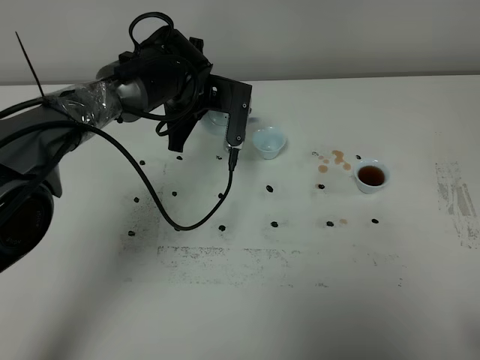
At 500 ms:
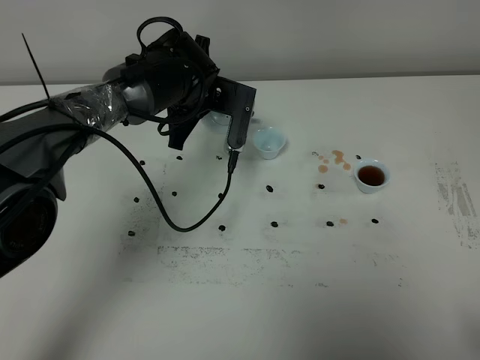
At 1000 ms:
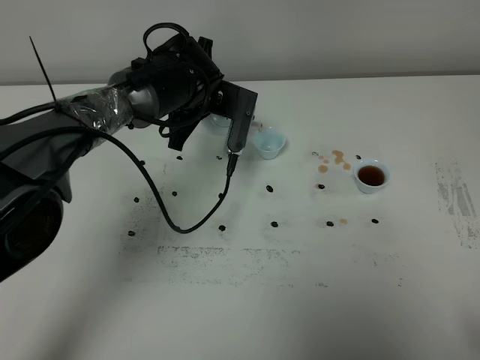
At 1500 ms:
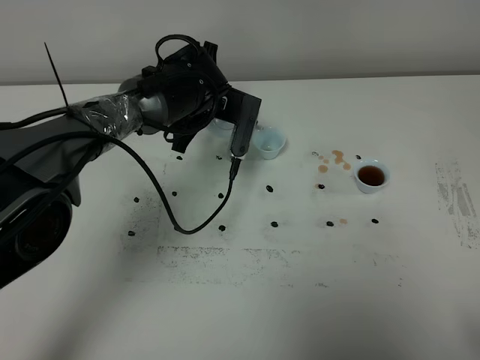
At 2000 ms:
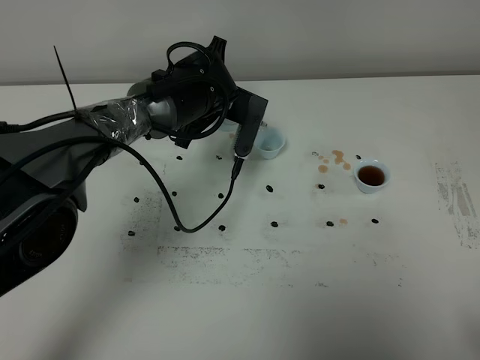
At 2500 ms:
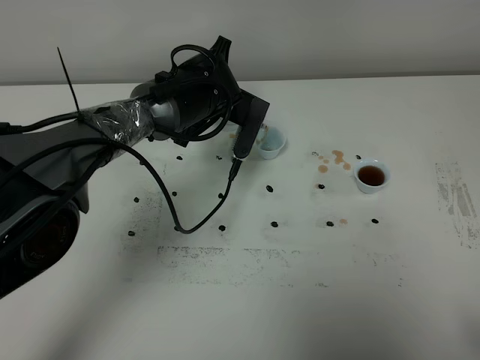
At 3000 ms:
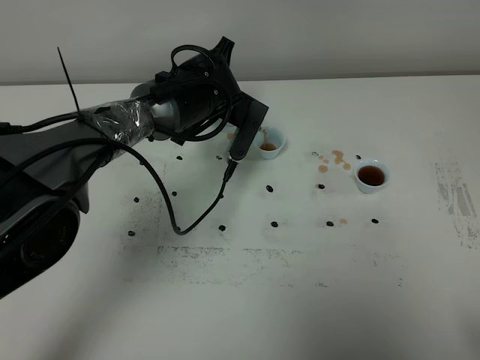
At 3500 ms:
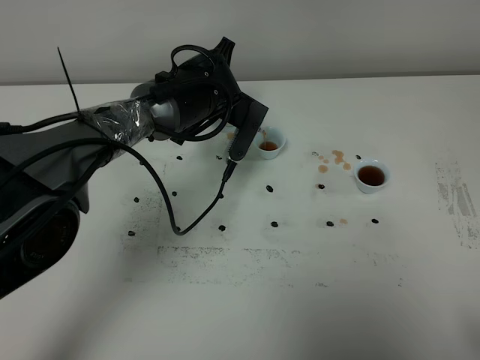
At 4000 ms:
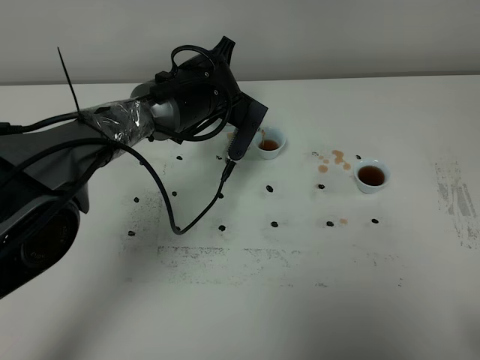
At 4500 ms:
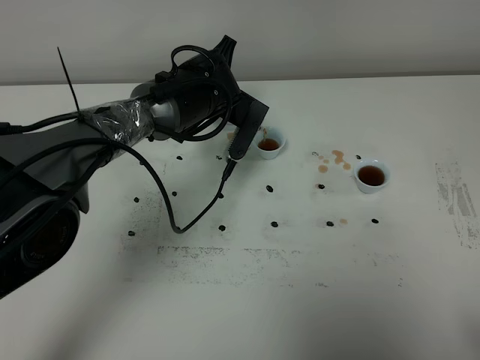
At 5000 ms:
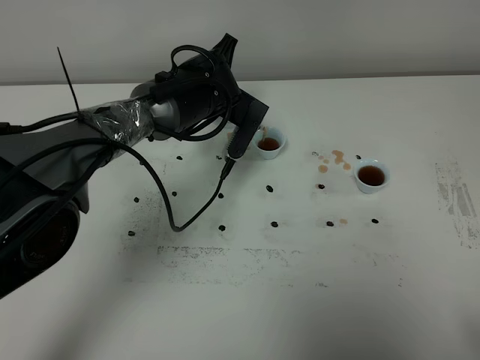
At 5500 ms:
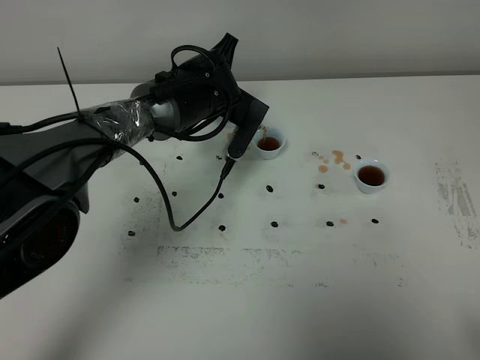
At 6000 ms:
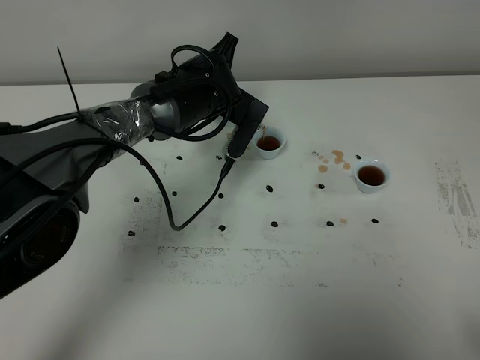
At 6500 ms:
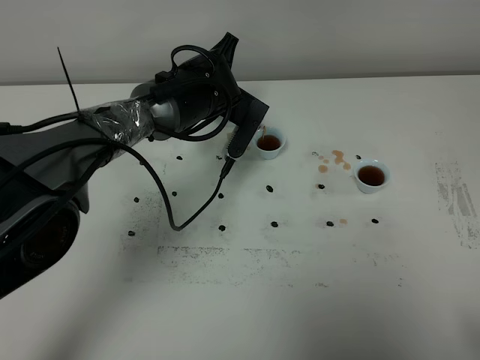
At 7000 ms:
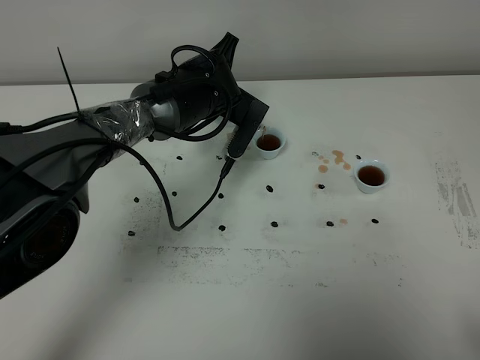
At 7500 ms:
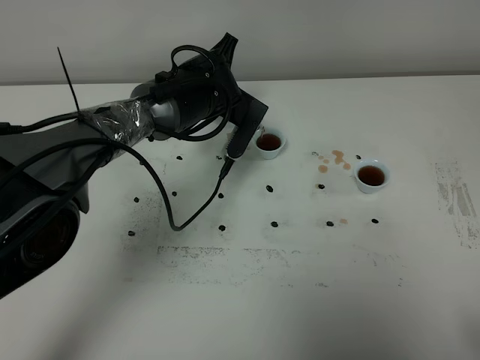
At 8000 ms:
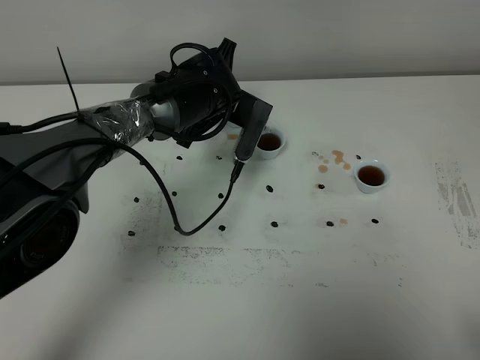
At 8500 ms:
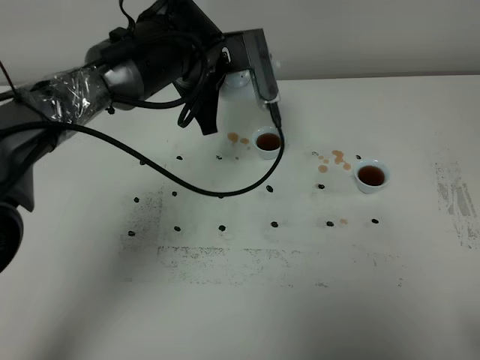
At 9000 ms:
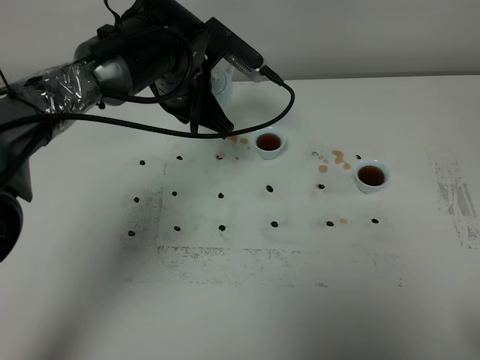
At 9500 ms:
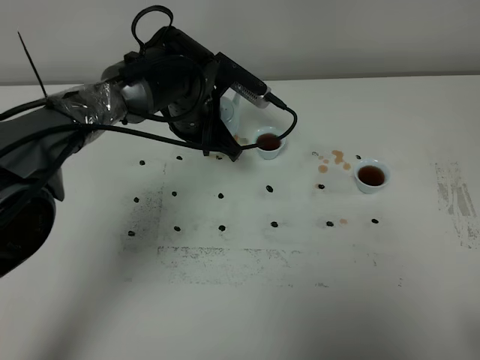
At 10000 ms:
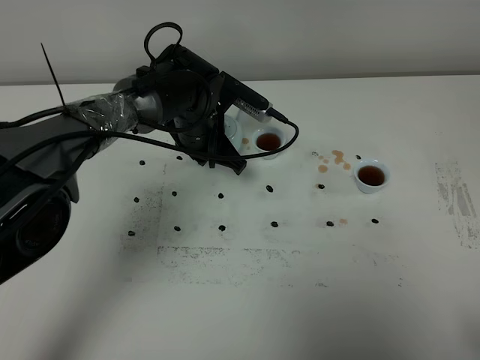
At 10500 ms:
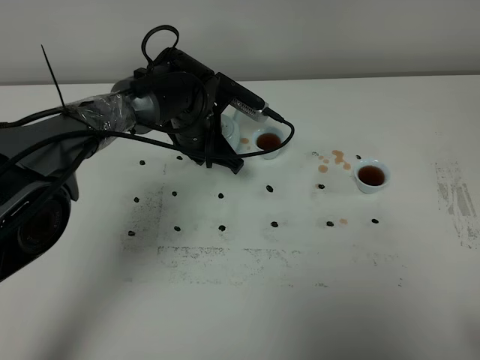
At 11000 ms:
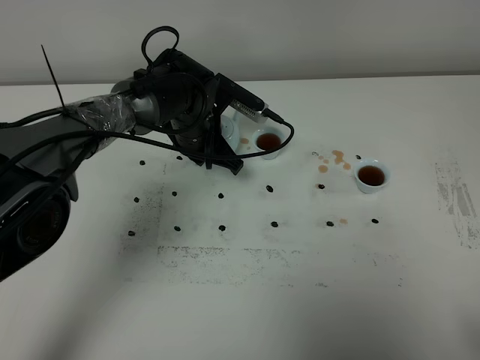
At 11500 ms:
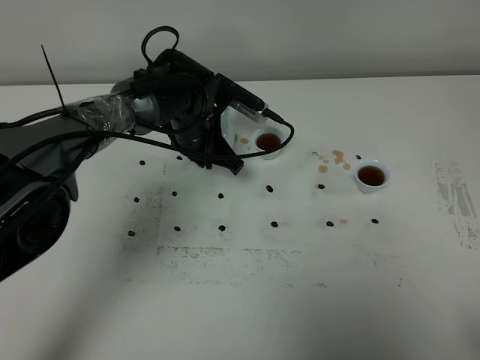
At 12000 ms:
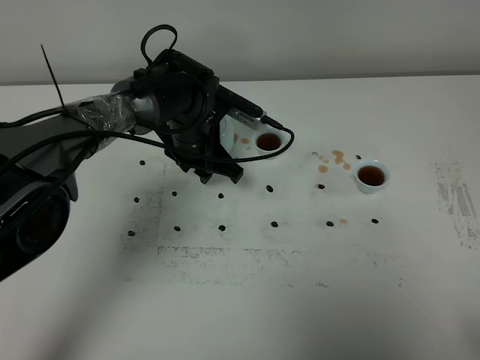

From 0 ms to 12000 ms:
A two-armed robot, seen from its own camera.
Task of the whole recording: grasp the blue porcelain teapot and pour the tea into the two blue porcelain teacups one by one, put the blue porcelain teapot back in its original place.
Step, from 0 ms to 8000 ms: Pour tea into the teacup with the left gripper.
From 0 ms to 2000 ms: The grippers move only a little.
From 2000 ms to 4000 ms: The grippers stay close to where they were, moving slightly.
From 4000 ms to 6000 ms: The two grippers keep their place.
From 6000 ms to 8000 ms: The grippers stay close to where they were, moving slightly.
From 8000 ms to 10000 ms: The left gripper reaches some 5 cm upward, then returns.
From 10000 ms to 12000 ms: The left gripper opens its fingers.

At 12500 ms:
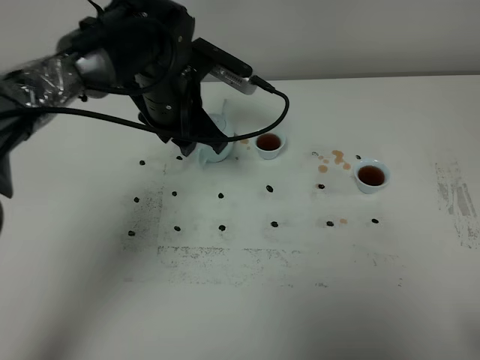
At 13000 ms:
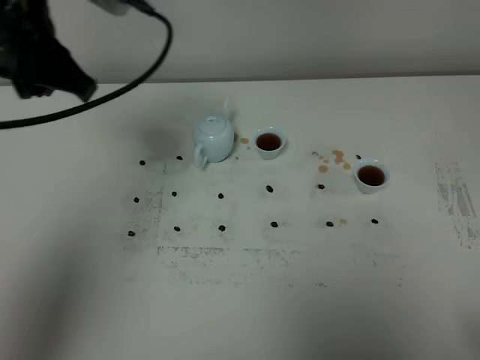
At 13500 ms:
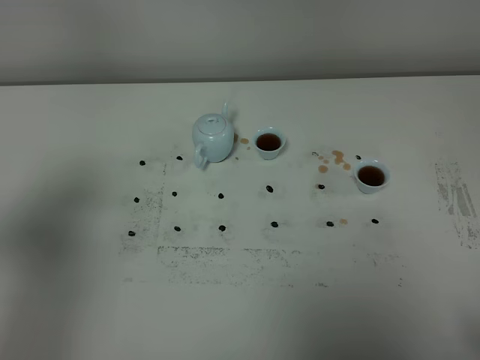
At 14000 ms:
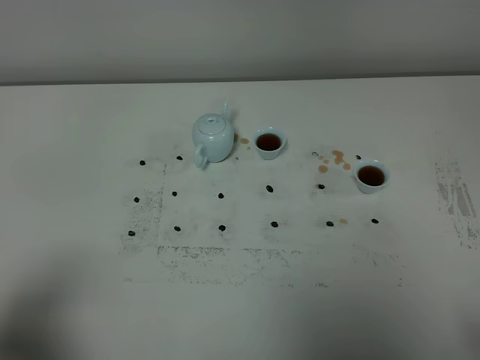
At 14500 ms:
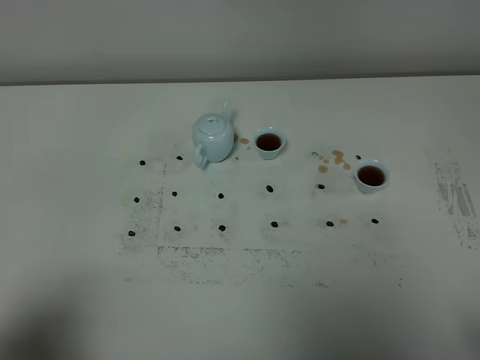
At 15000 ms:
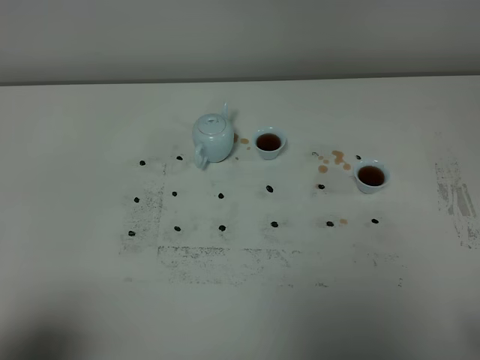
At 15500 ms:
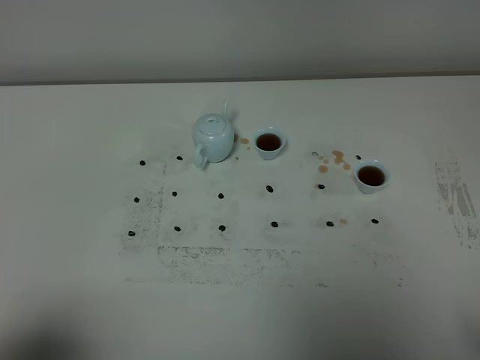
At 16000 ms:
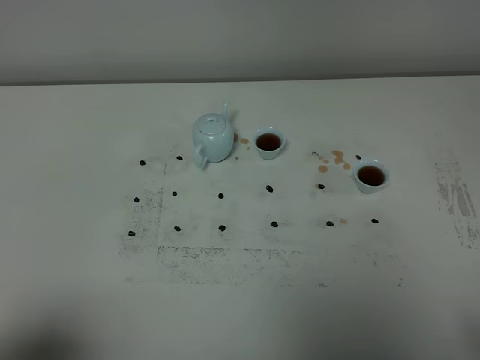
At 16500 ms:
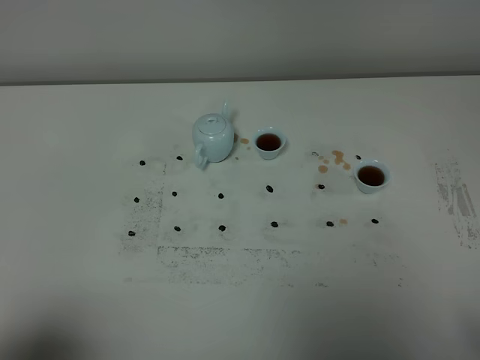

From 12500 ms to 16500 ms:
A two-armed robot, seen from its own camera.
Task of the whole recording: grasp the blue porcelain teapot and pour the tea into the two blue porcelain teacups one by one, put the blue porcelain teapot back in its original place.
From 12500 ms to 14500 ms: The left gripper is displaced backward and to the left by roughly 40 cm.

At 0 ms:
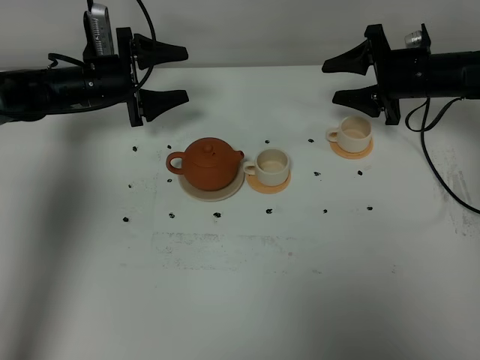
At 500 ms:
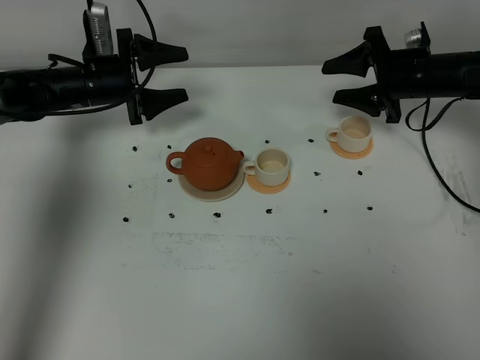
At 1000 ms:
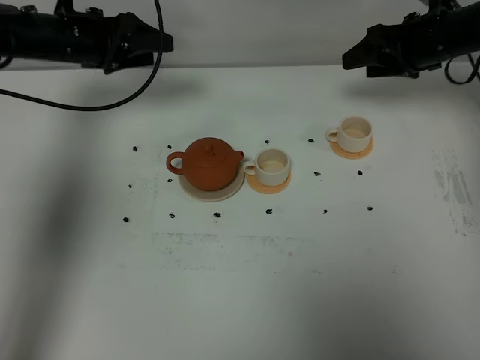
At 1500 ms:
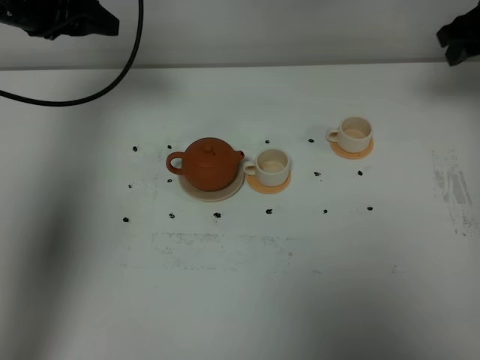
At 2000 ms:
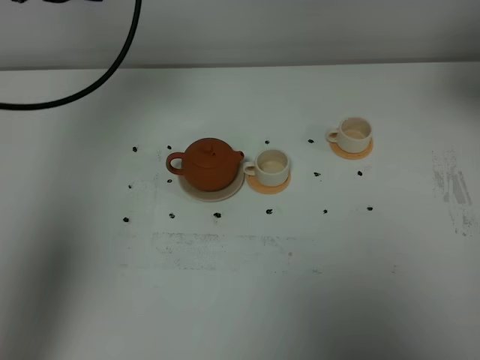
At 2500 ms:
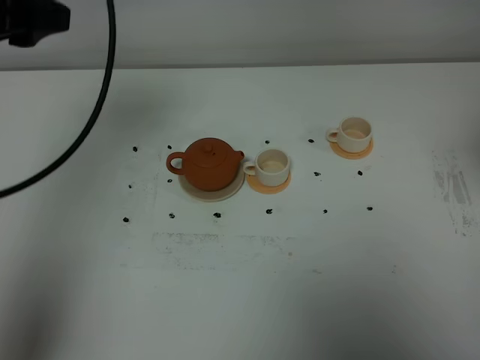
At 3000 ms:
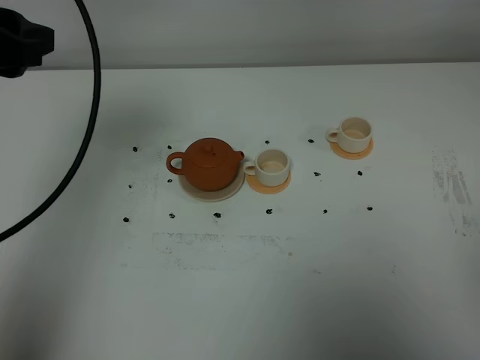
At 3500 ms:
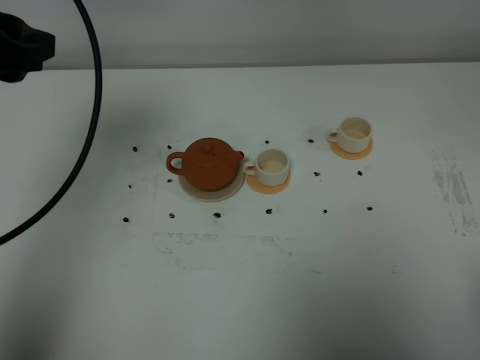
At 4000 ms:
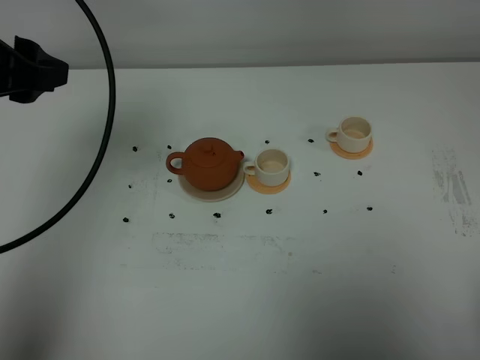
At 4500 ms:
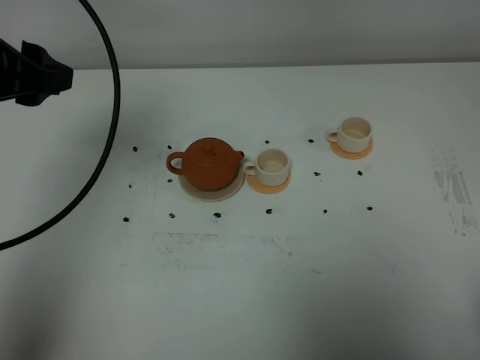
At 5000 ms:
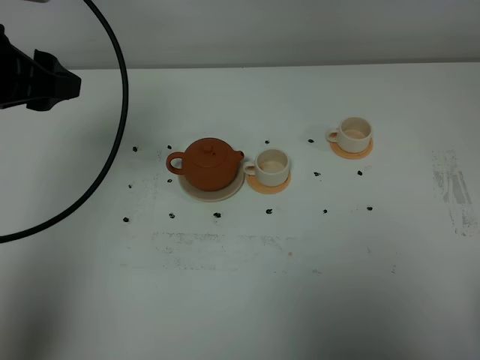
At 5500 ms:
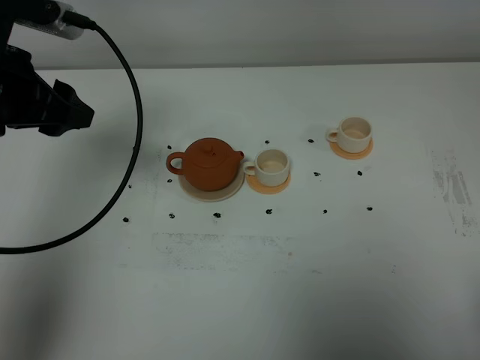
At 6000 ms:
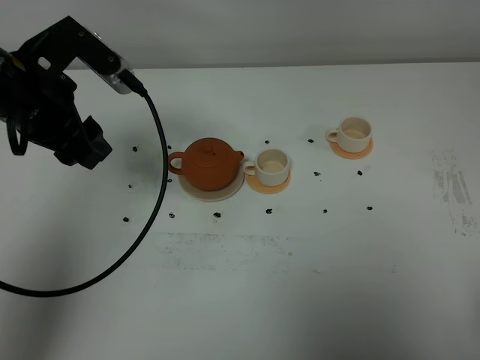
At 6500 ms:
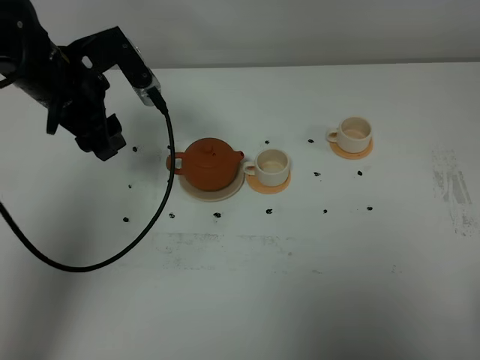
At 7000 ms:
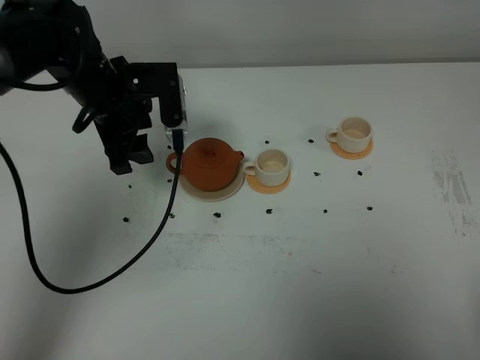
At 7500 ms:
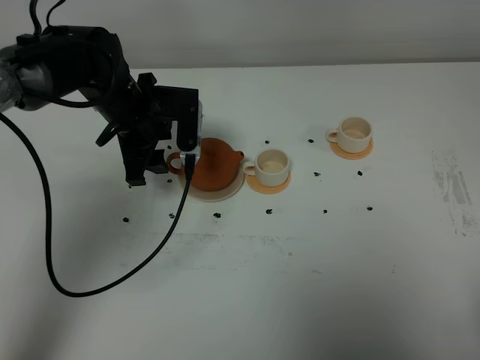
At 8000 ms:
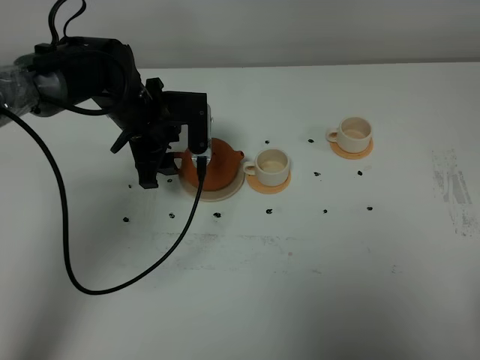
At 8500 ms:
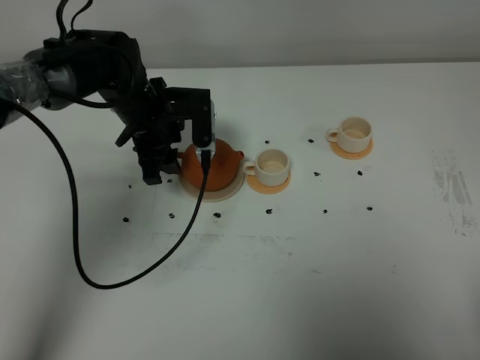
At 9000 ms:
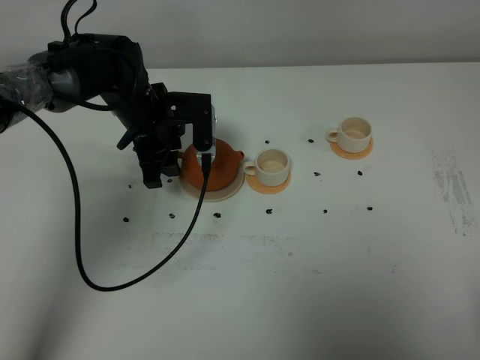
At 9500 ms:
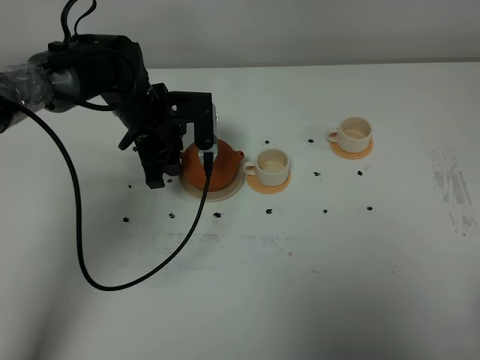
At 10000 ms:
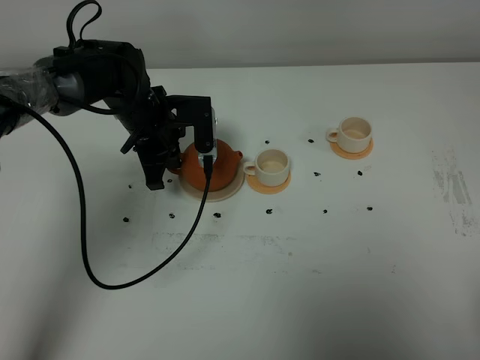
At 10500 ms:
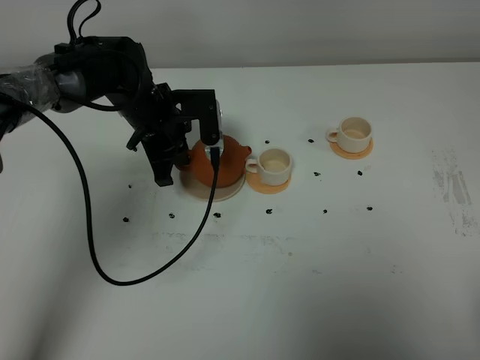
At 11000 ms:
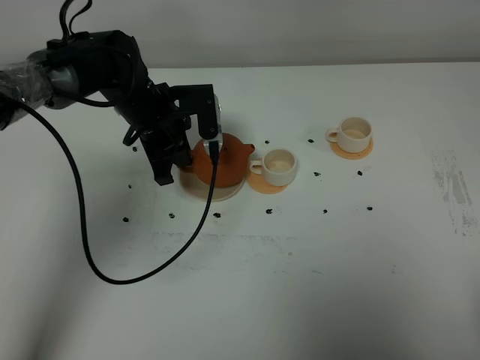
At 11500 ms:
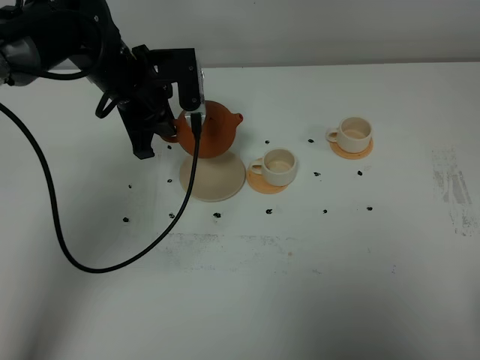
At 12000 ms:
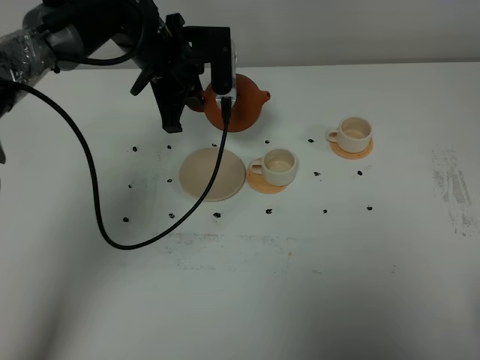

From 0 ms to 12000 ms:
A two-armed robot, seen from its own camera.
Task of the whole recording: grasp the brown teapot and pour the tea into the two white teacups one by one, put the brown teapot back in its original place.
Step, from 0 ms to 11000 ms: Pick up the teapot with the left gripper.
From 0 ms to 2000 ms: The right gripper is displaced upward and backward by roughly 30 cm, and closes; the left gripper heads upward, covering about 25 cm.
From 2000 ms to 4000 ms: The left gripper travels backward by some 10 cm. Meanwhile the right gripper travels backward and downward by about 35 cm, and closes its fingers.
From 4000 ms to 6000 ms: The left gripper moves downward, some 5 cm.
From 6000 ms to 8000 ms: The left gripper goes approximately 15 cm downward, forward and to the right.
From 8000 ms to 10000 ms: The left gripper closes its fingers.
From 10000 ms to 12000 ms: The left gripper heads upward, covering about 10 cm.
